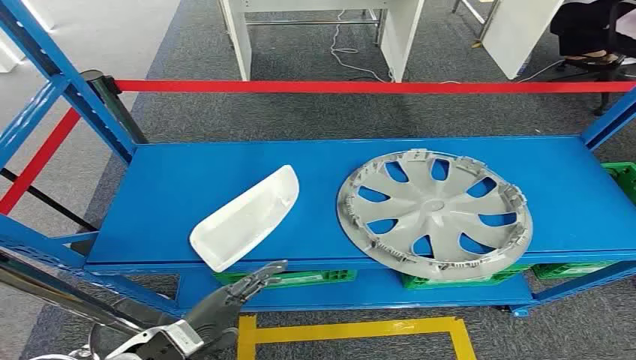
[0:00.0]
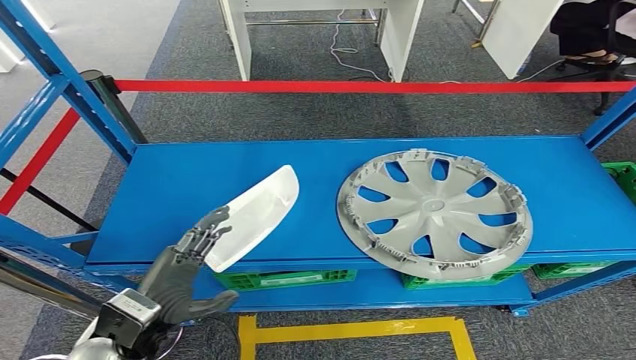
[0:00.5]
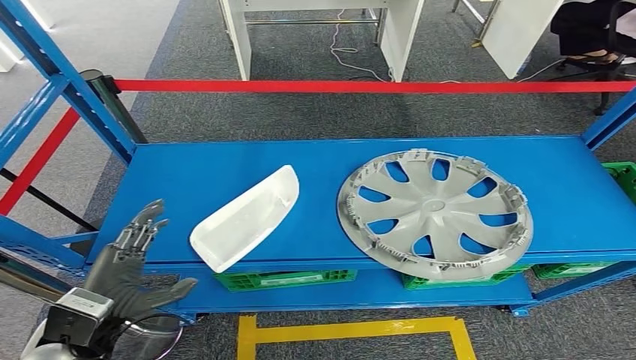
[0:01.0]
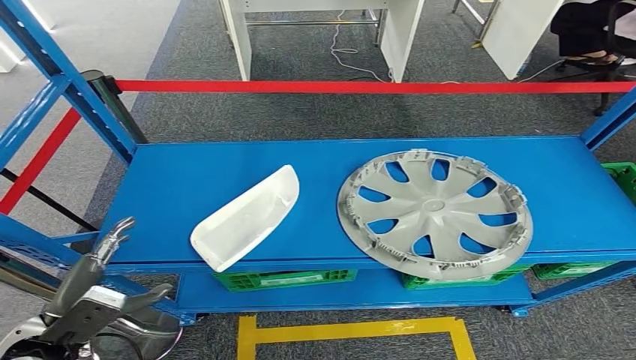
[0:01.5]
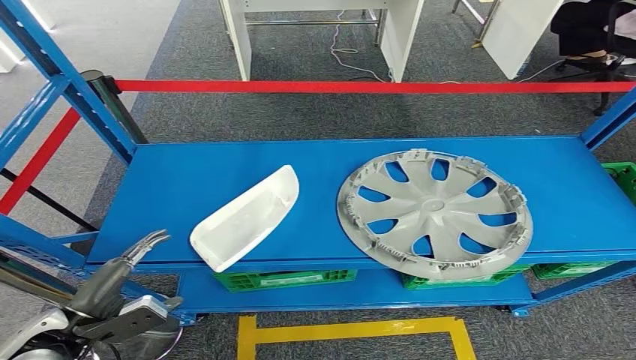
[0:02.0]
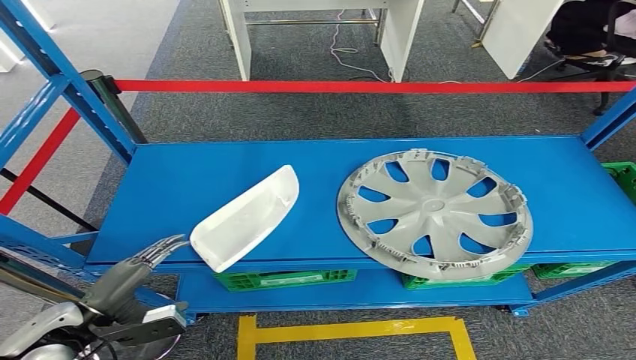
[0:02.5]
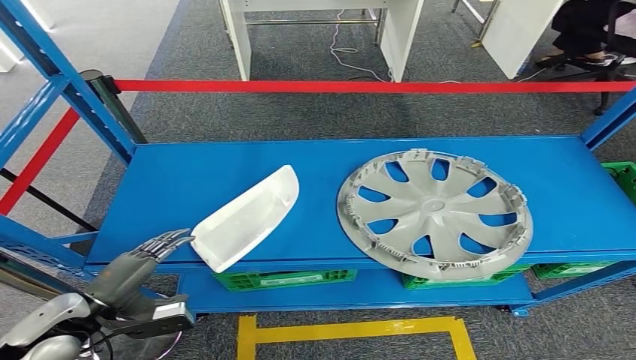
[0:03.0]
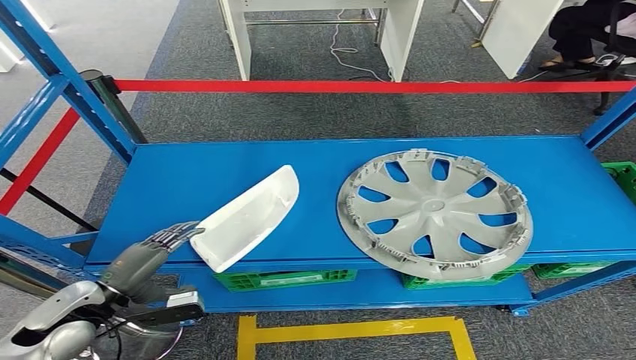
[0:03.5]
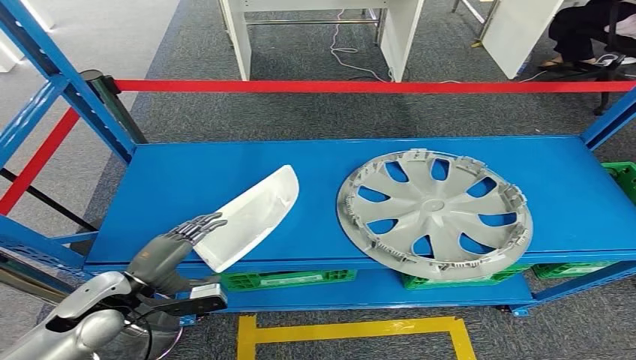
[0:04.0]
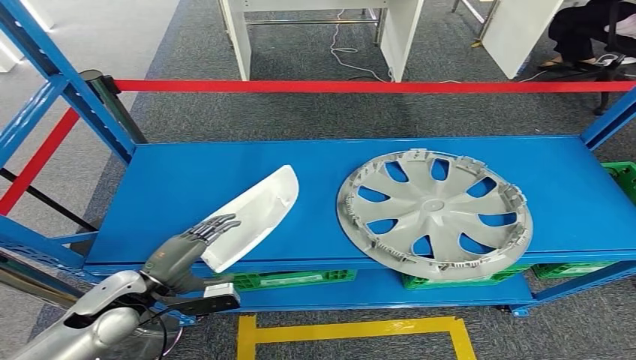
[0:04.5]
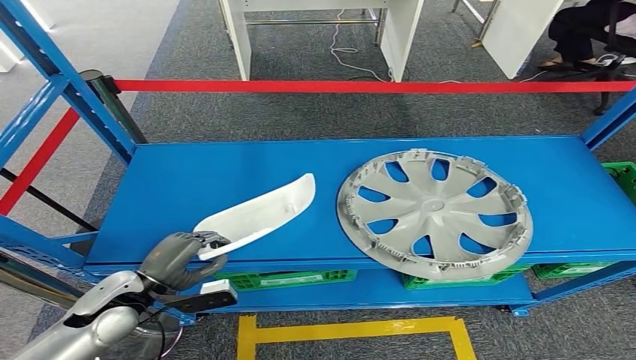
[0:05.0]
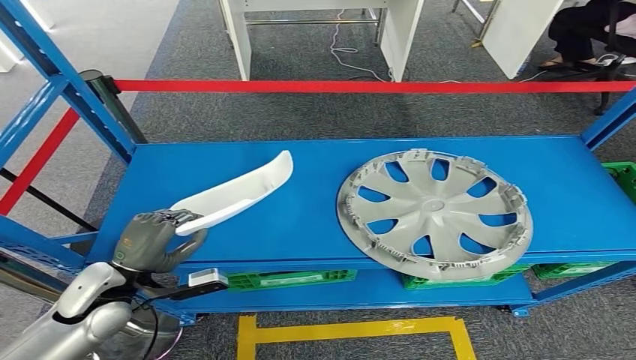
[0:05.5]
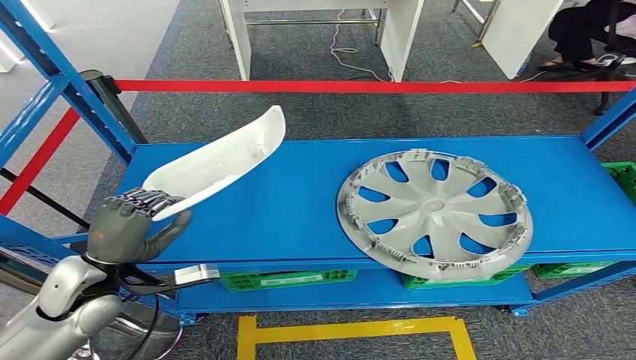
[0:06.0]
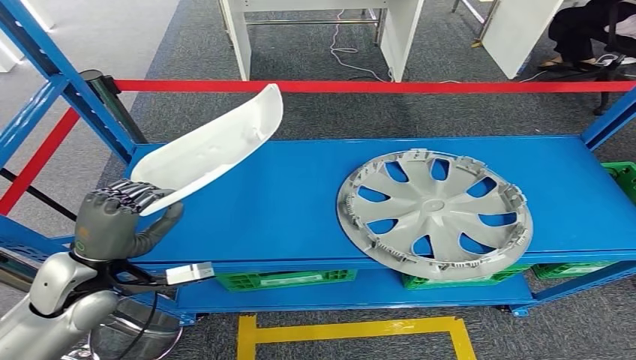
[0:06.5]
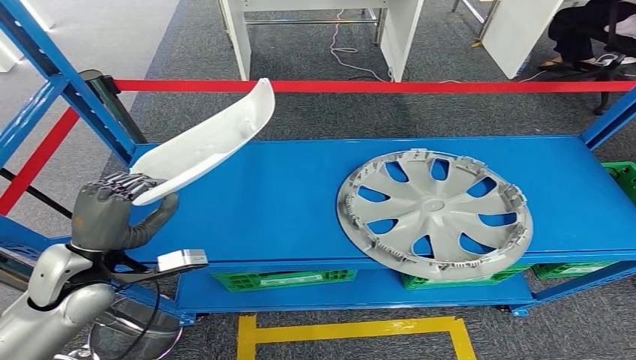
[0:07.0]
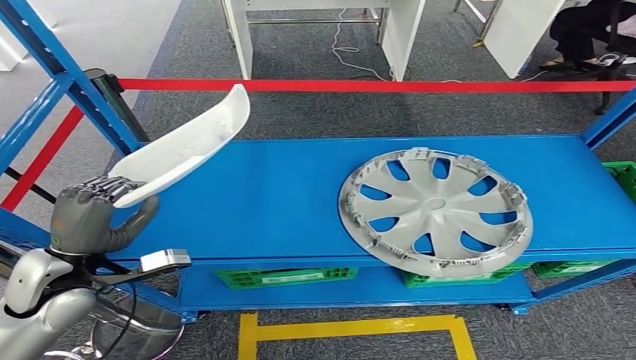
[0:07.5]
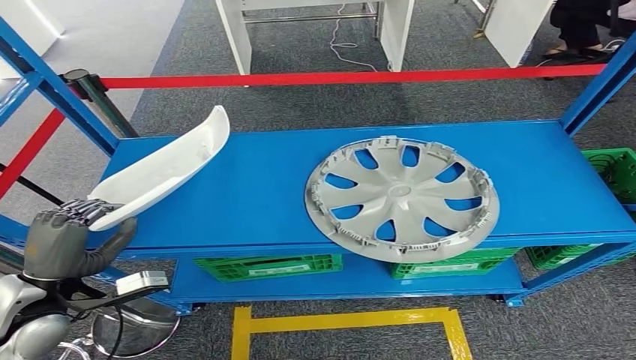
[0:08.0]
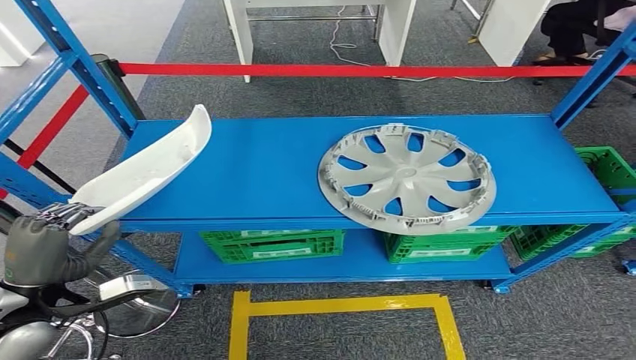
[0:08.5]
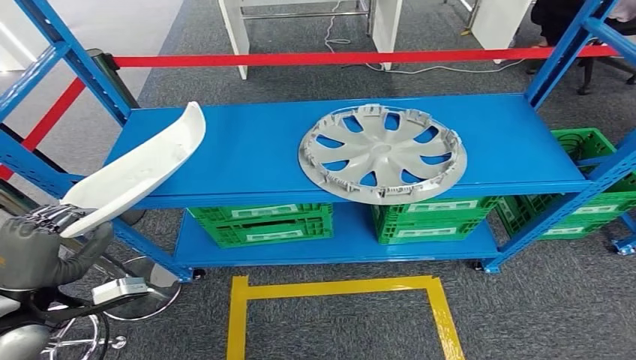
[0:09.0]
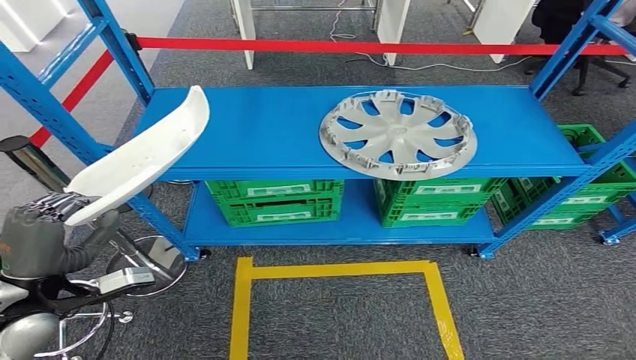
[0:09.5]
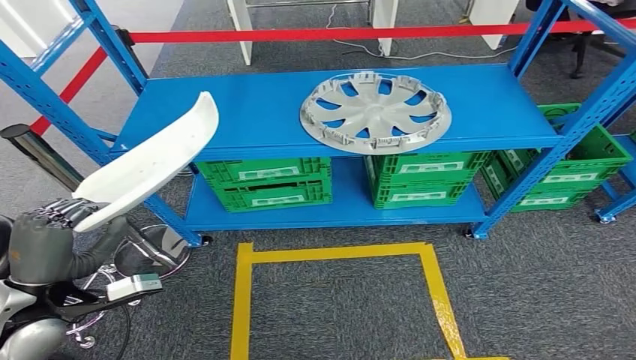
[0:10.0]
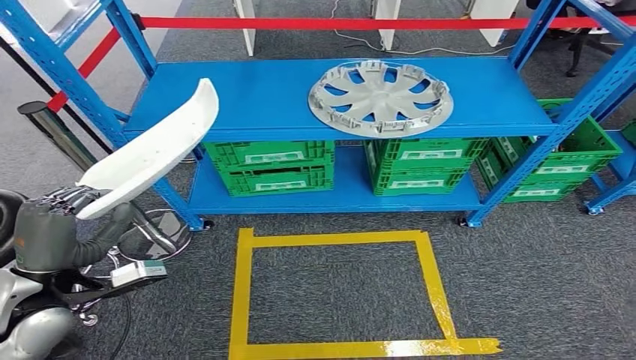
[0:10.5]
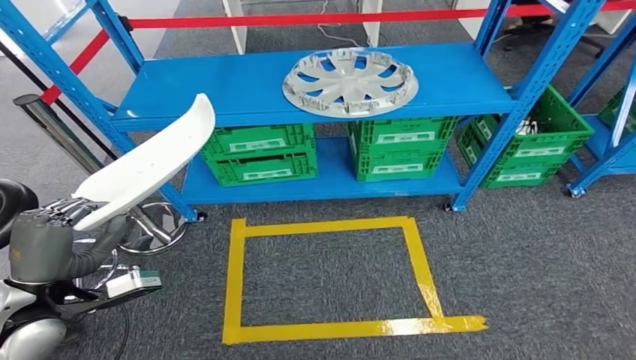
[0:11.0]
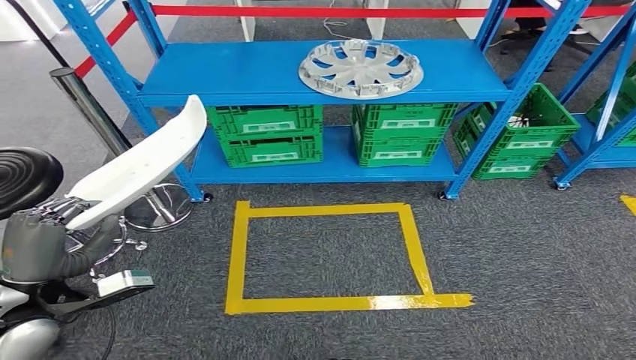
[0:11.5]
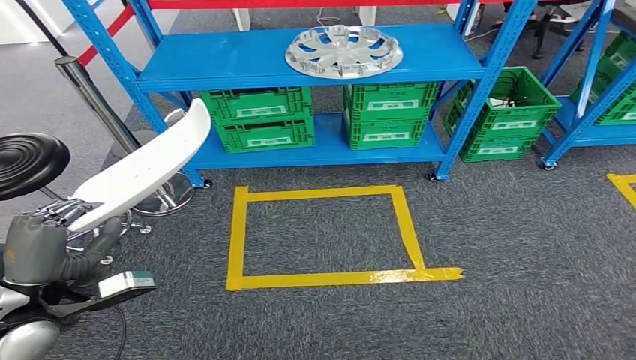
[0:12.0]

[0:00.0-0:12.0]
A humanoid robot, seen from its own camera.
Step, 0:00.0 to 0:06.0: Pick up the small parts from the shelf.
0:02.0 to 0:04.0: The left hand is displaced forward by approximately 5 cm.
0:04.0 to 0:06.0: The left hand moves upward, some 5 cm.

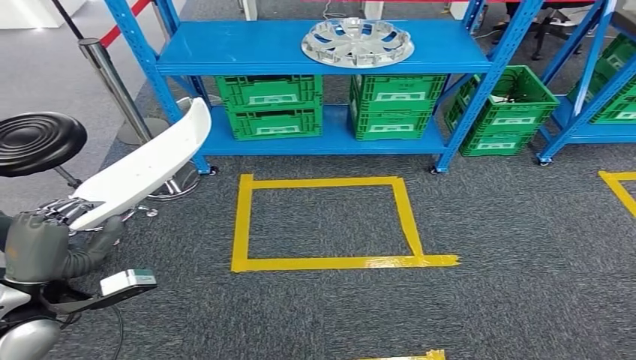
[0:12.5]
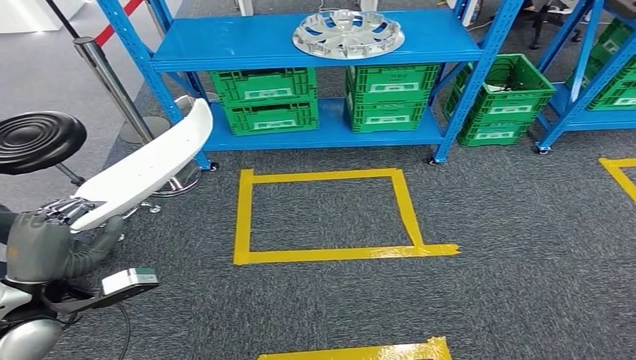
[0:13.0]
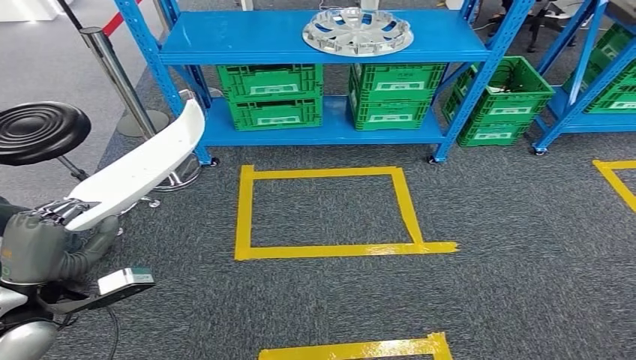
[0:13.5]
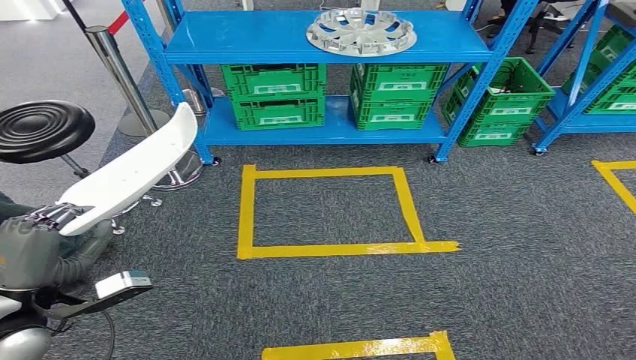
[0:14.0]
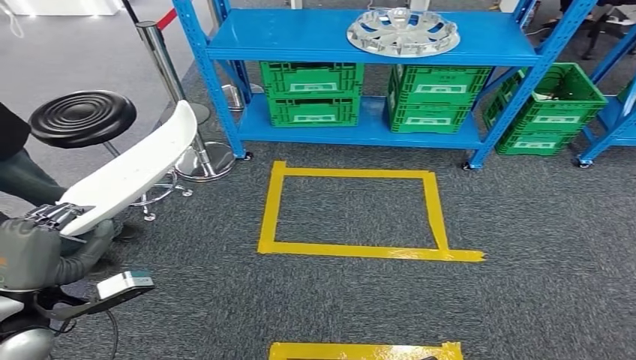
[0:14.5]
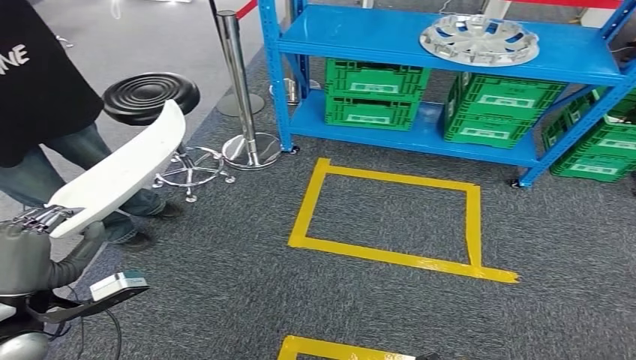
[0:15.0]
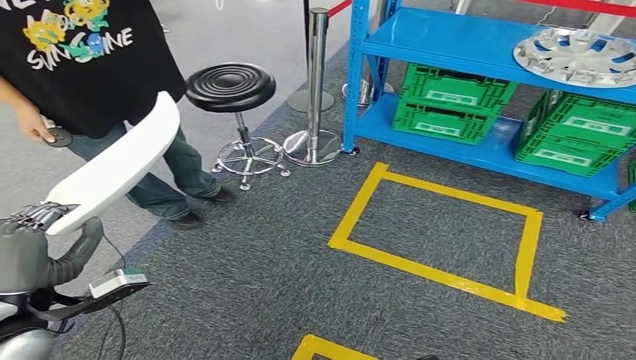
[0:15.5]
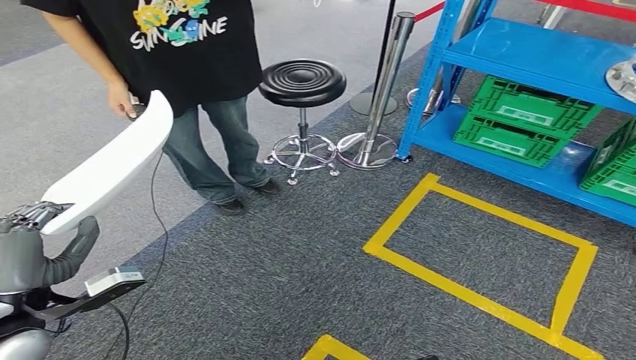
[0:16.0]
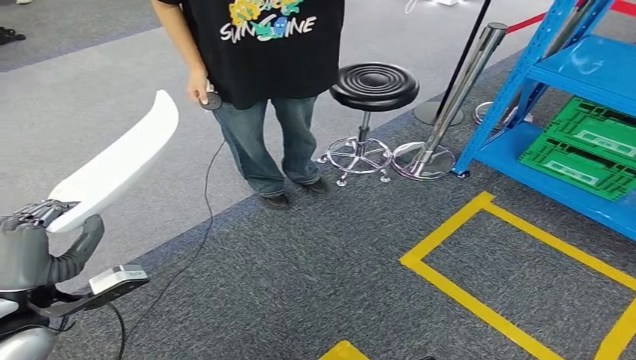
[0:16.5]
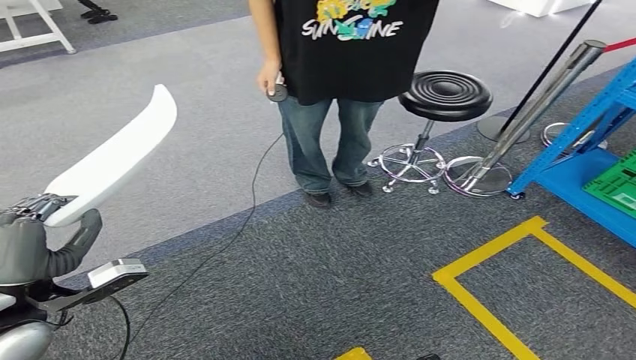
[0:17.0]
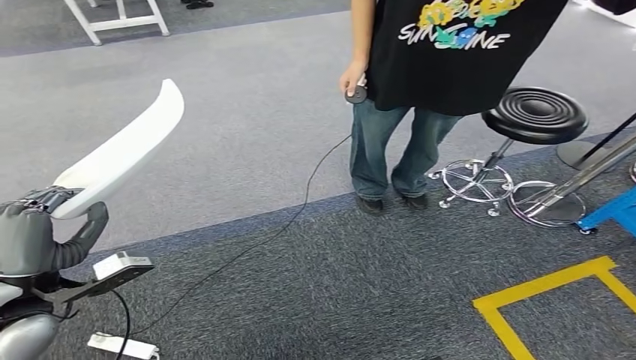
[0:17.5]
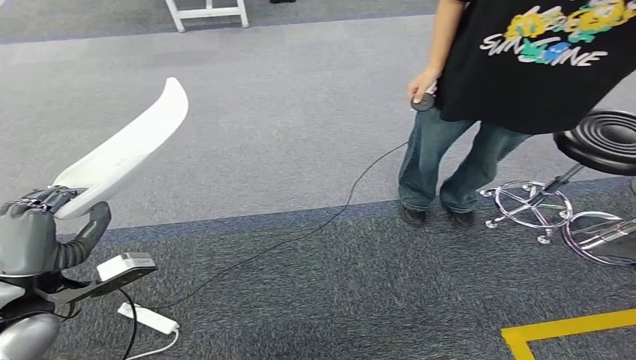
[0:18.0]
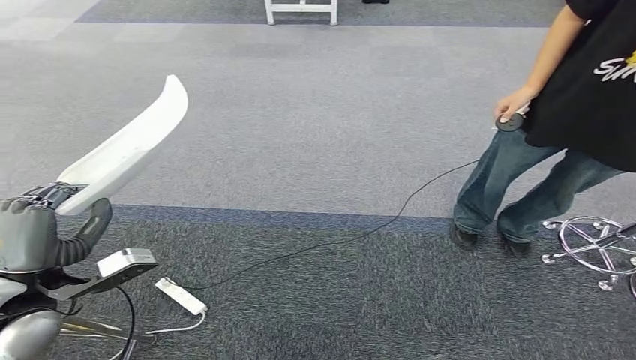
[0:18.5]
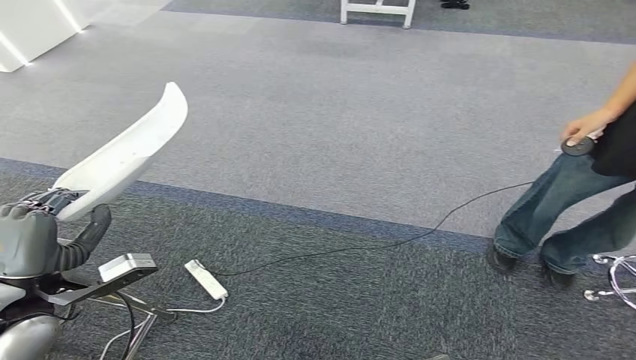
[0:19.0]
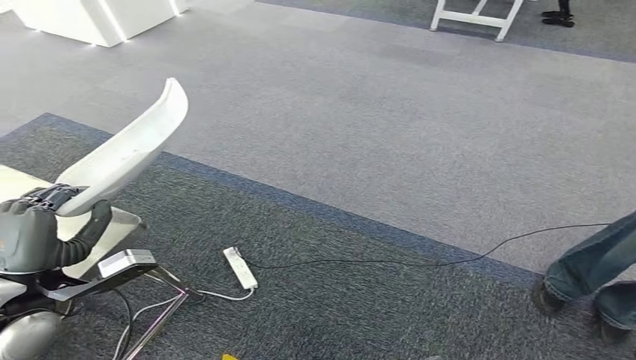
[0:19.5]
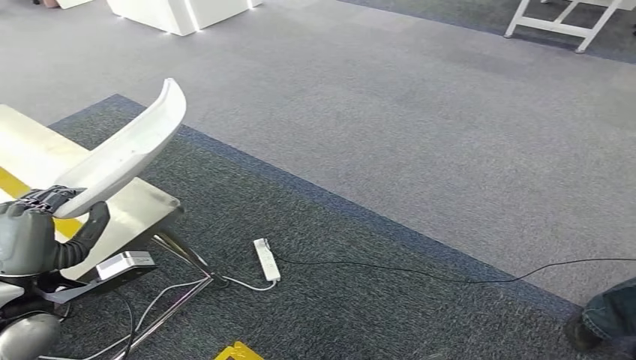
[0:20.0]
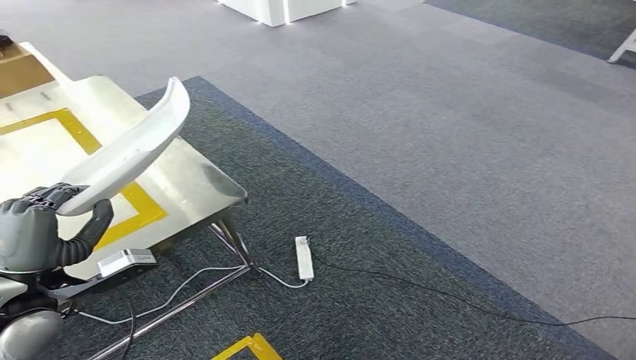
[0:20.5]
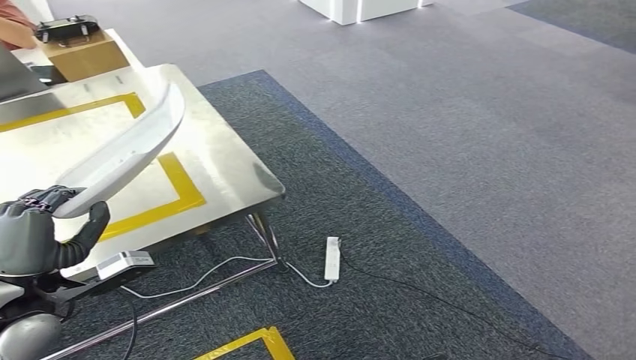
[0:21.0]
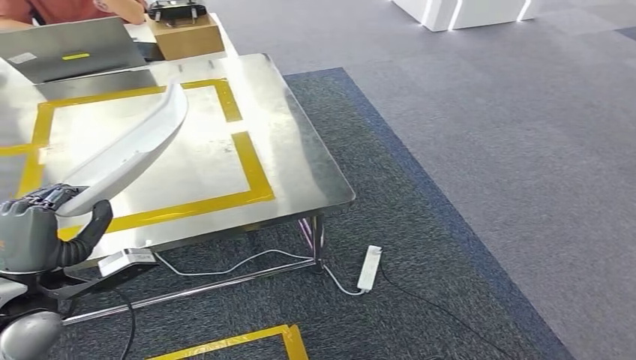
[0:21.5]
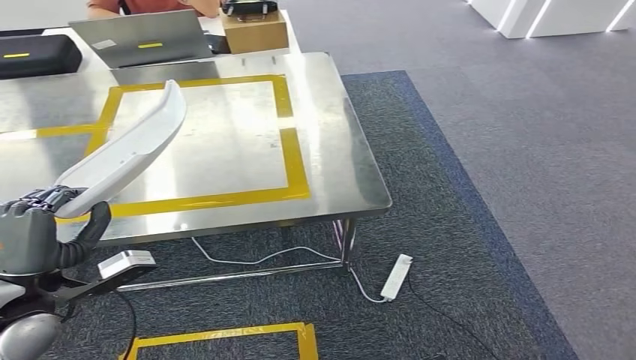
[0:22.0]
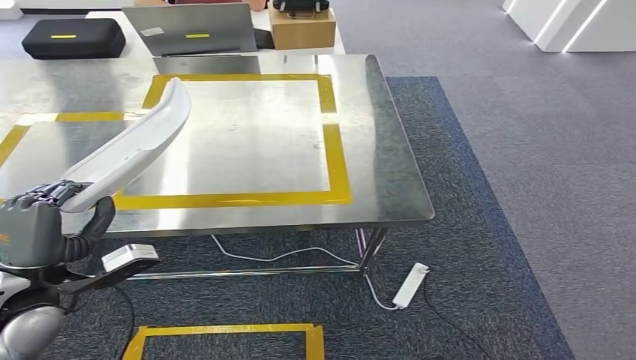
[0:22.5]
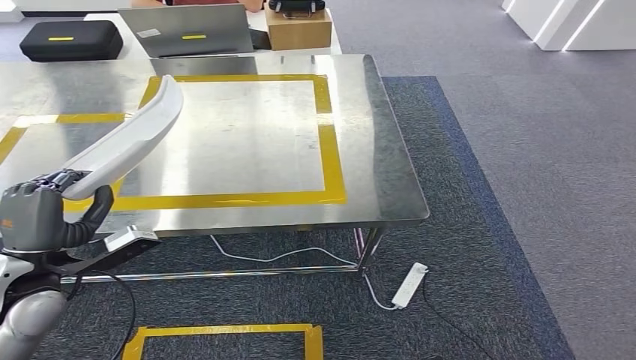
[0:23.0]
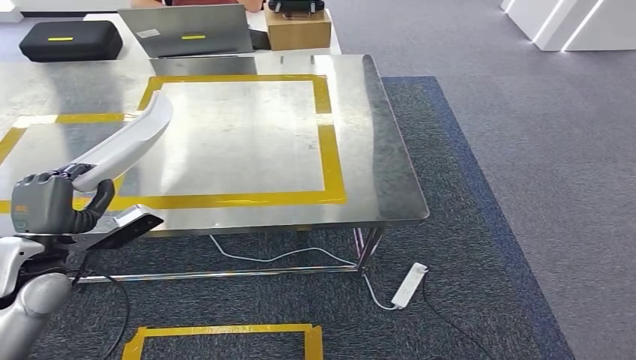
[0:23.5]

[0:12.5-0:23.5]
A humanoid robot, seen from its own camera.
Step, 0:12.5 to 0:21.5: Move the small parts to the workbench.
